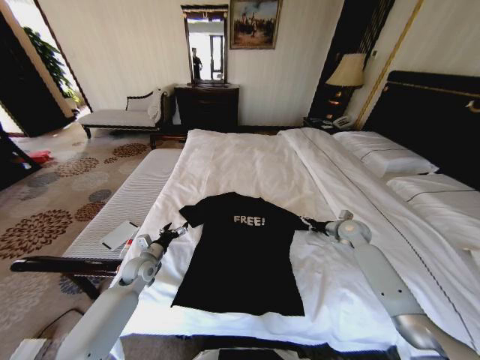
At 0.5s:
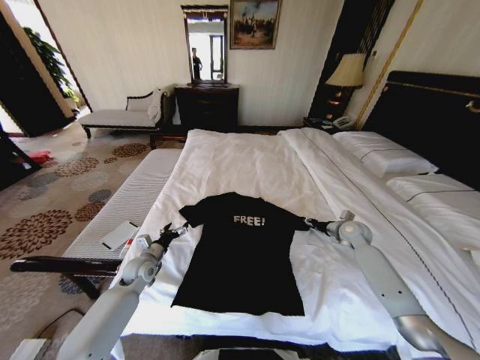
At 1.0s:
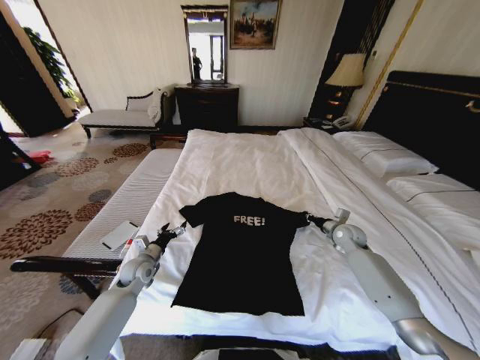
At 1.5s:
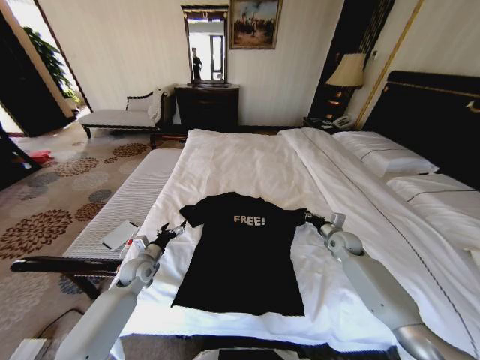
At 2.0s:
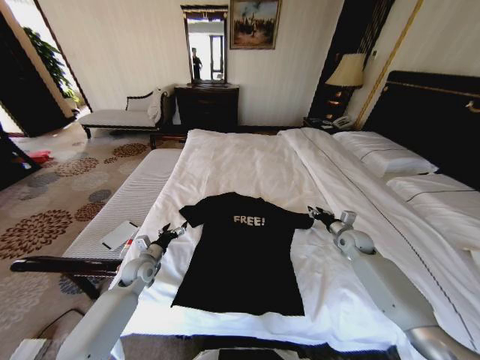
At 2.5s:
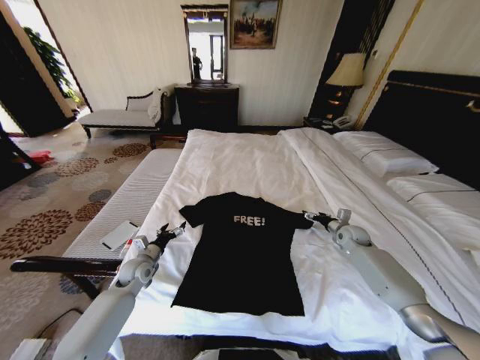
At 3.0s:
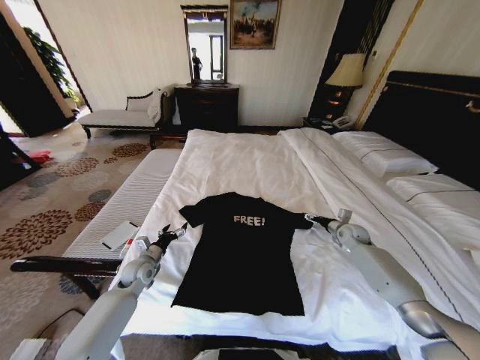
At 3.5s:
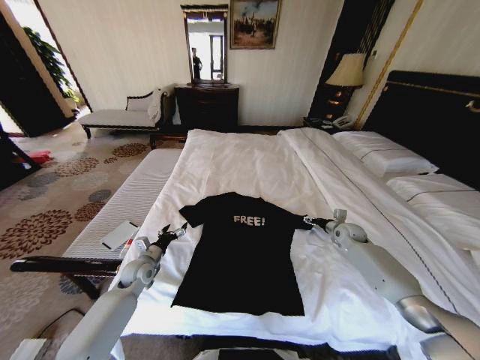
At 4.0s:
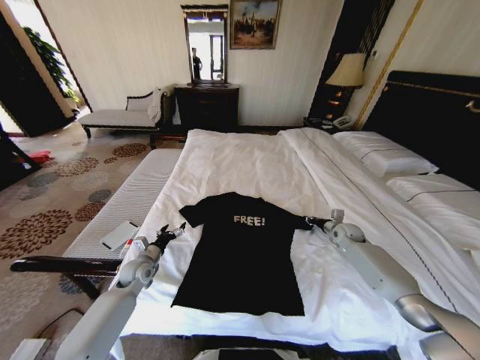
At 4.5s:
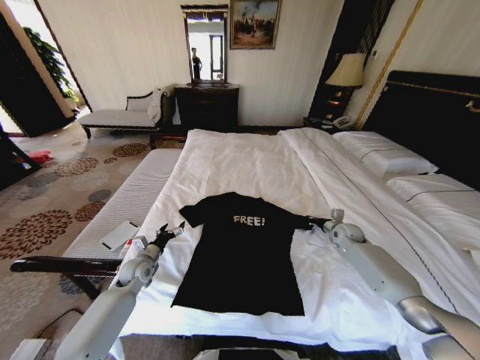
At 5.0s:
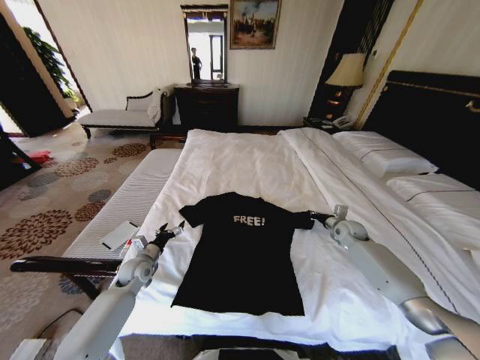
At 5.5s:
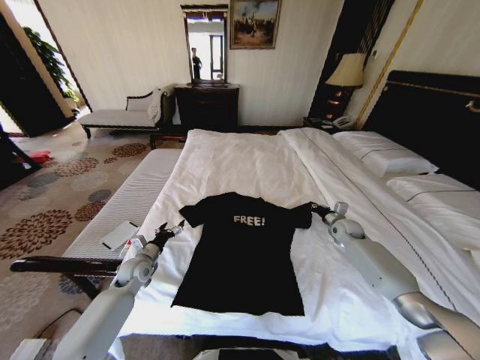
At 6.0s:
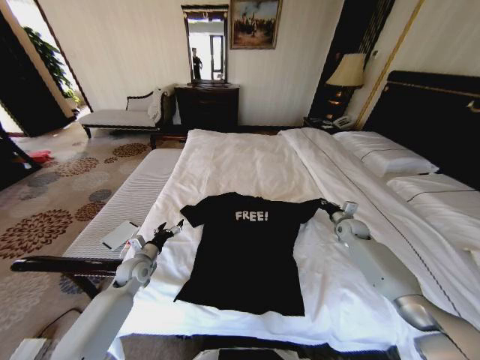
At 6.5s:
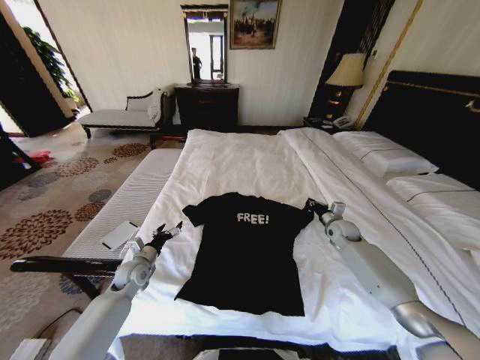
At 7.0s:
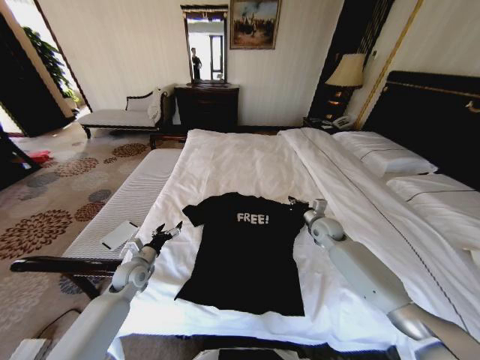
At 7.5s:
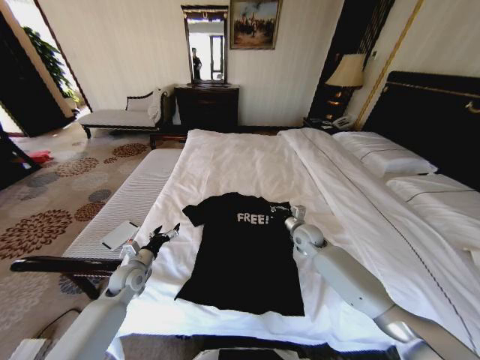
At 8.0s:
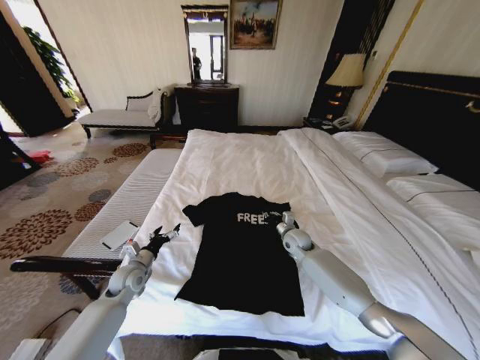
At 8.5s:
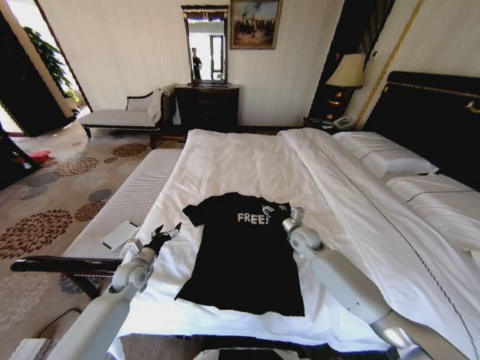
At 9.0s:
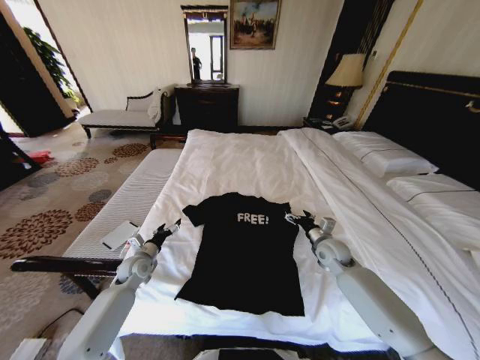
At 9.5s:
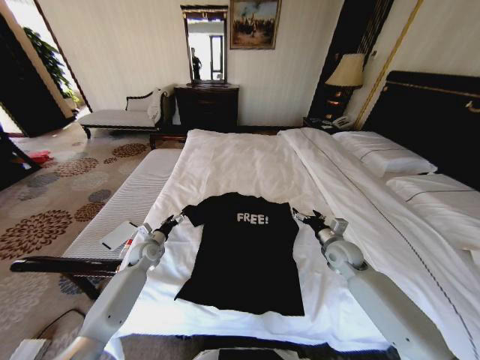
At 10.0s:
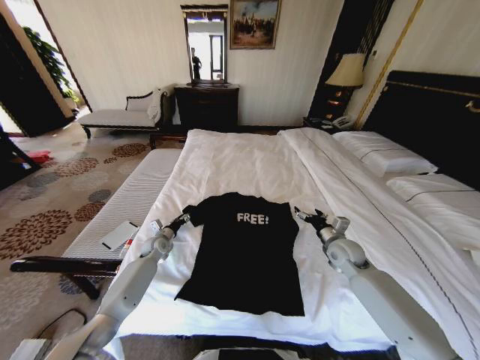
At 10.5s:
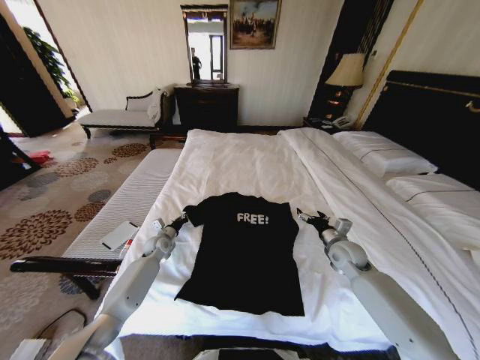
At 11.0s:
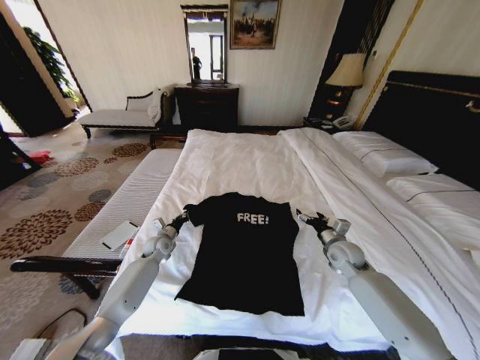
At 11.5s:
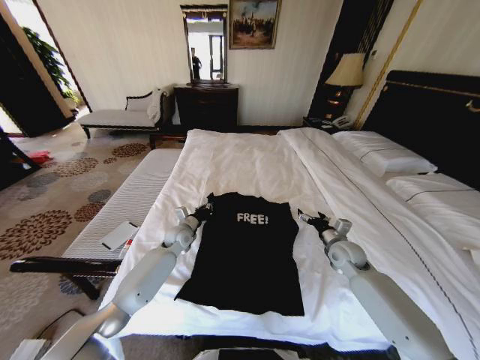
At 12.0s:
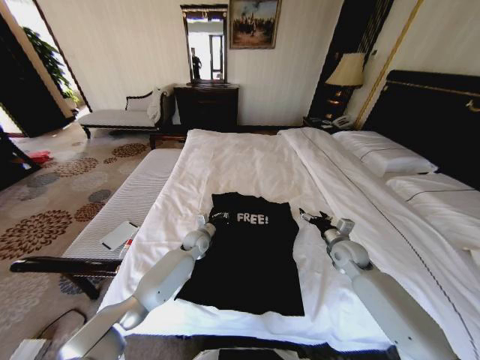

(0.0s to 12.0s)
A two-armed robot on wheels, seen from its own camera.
Task of the whole recording: Fold the clothes on the bed.
0.0s - 2.0s: The right gripper closes its fingers.
2.0s - 4.0s: The right gripper moves forward, about 5 cm, and opens and closes again.
4.0s - 6.0s: The right gripper closes.
6.0s - 8.0s: The right gripper goes roughly 20 cm to the left.
8.0s - 10.0s: The right gripper goes roughly 15 cm to the right, backward and upward, and opens up. Meanwhile the left gripper heads forward, covering some 15 cm, and closes up.
10.0s - 12.0s: The left gripper goes roughly 15 cm to the right, and closes its fingers.

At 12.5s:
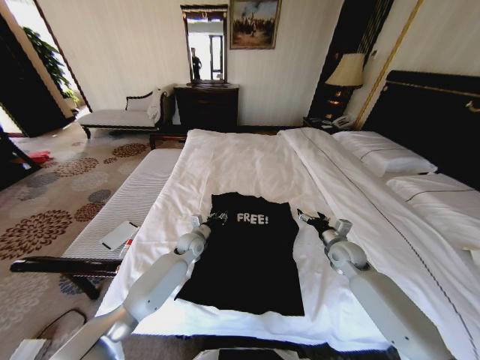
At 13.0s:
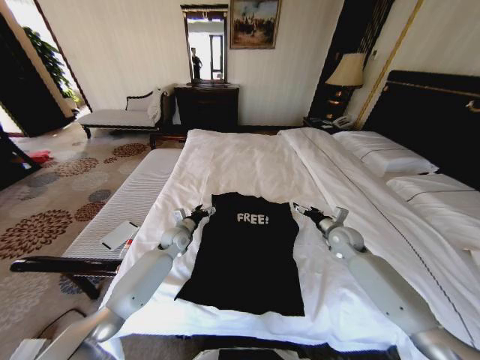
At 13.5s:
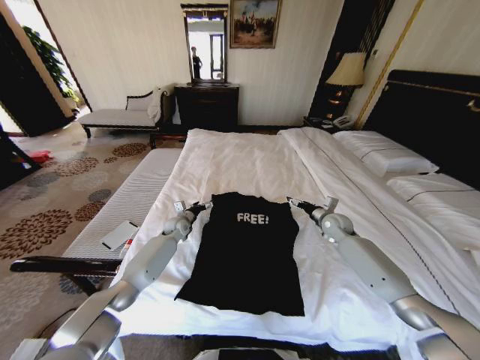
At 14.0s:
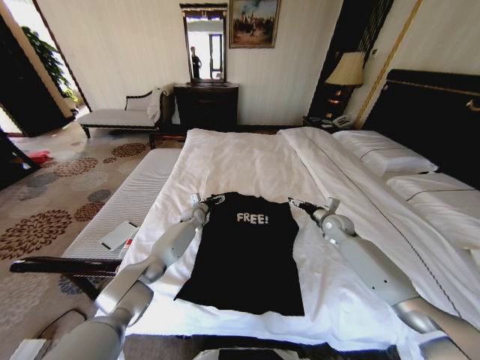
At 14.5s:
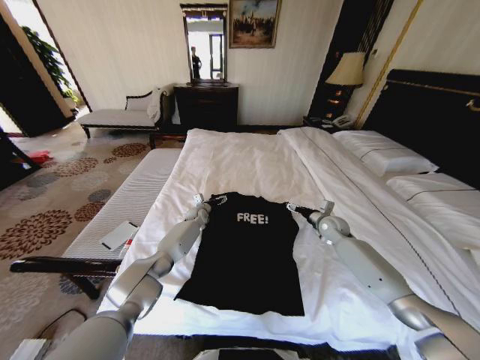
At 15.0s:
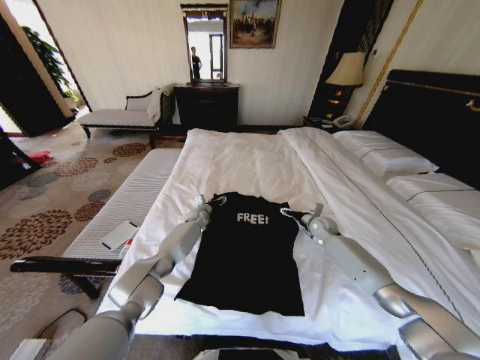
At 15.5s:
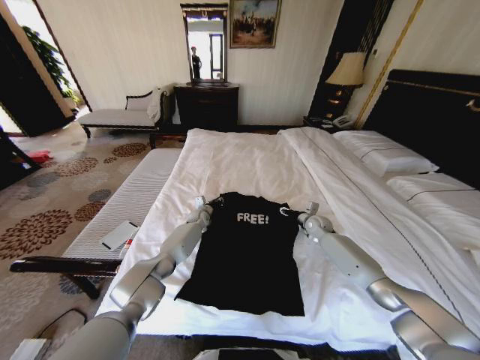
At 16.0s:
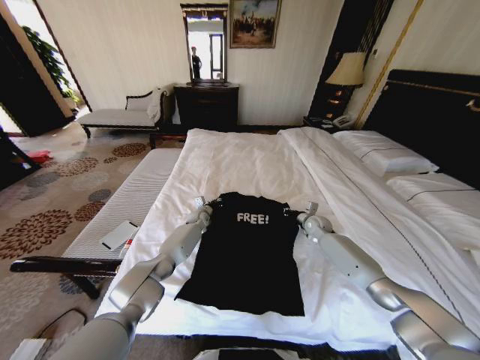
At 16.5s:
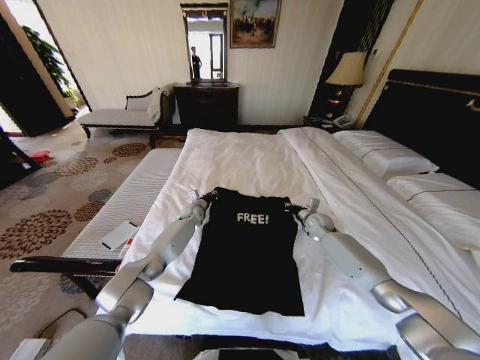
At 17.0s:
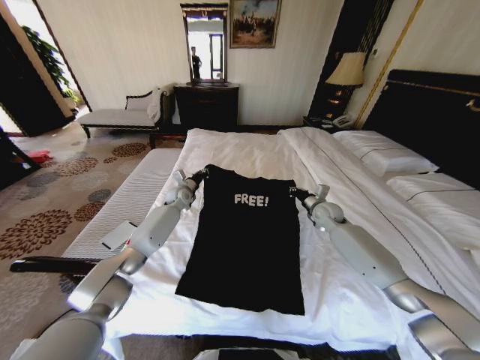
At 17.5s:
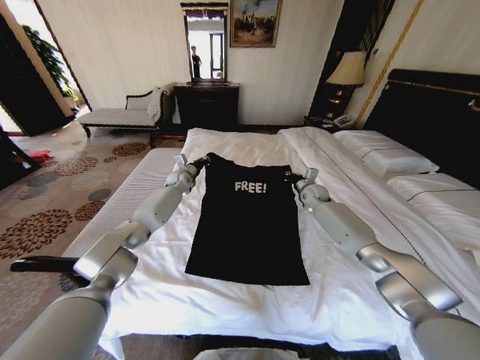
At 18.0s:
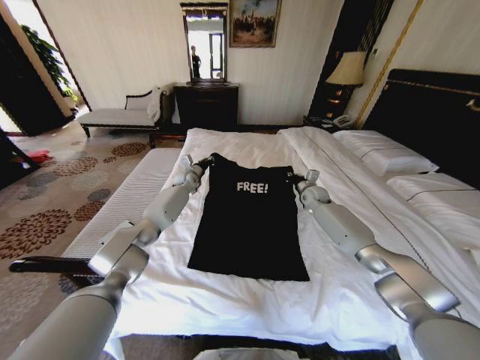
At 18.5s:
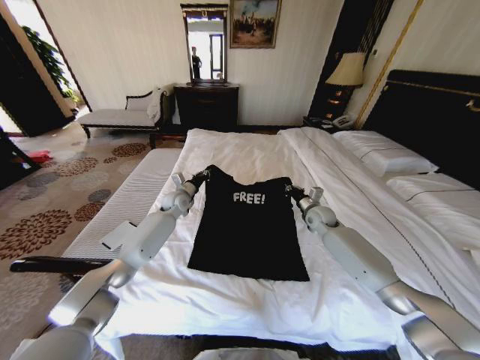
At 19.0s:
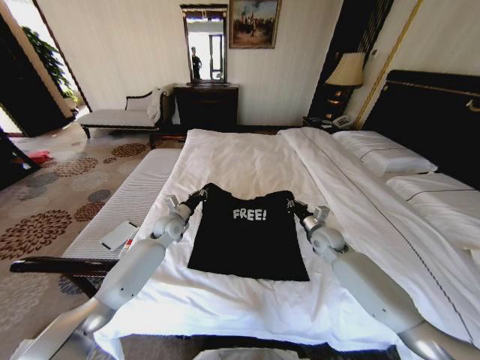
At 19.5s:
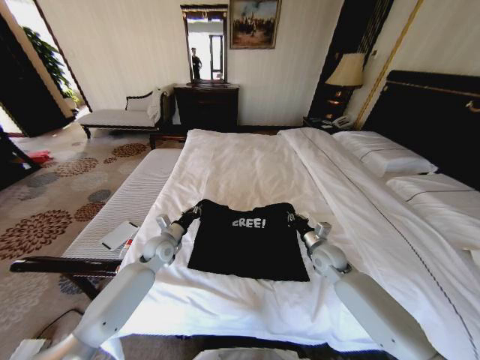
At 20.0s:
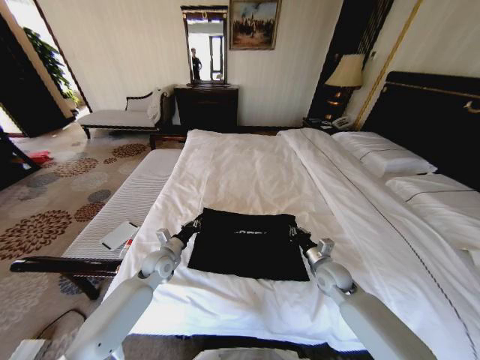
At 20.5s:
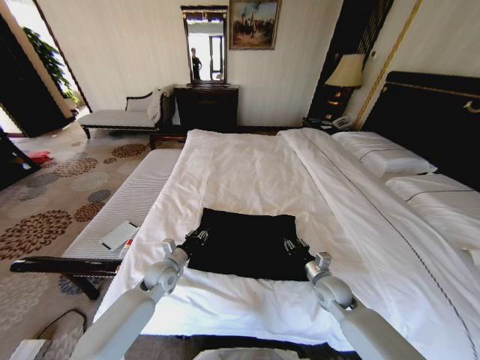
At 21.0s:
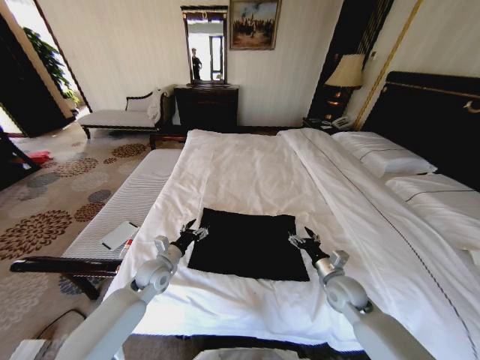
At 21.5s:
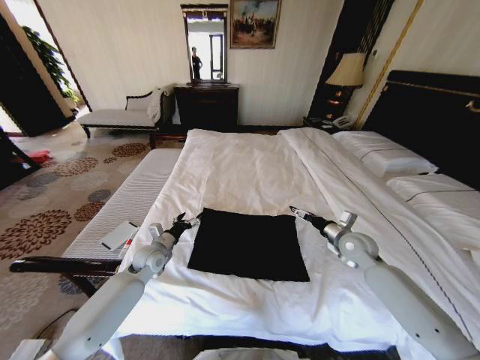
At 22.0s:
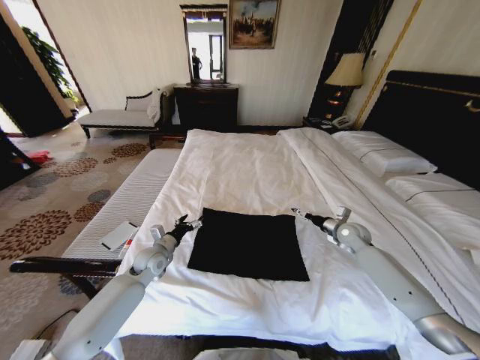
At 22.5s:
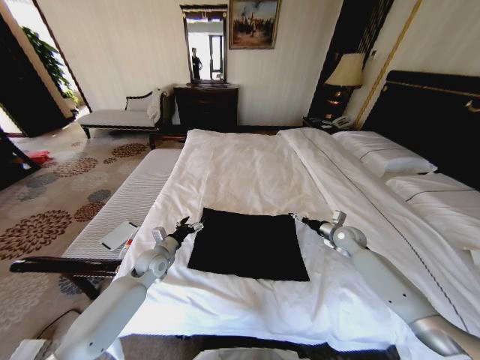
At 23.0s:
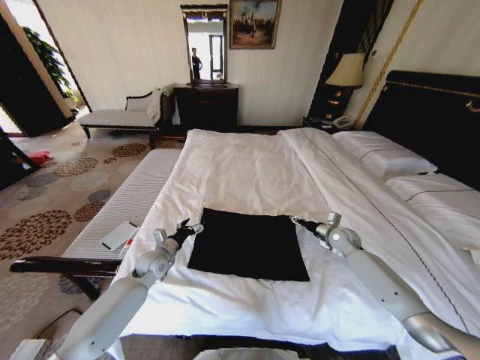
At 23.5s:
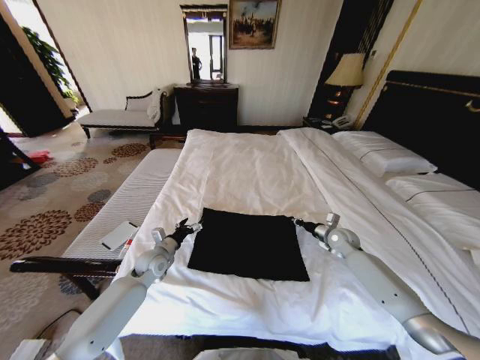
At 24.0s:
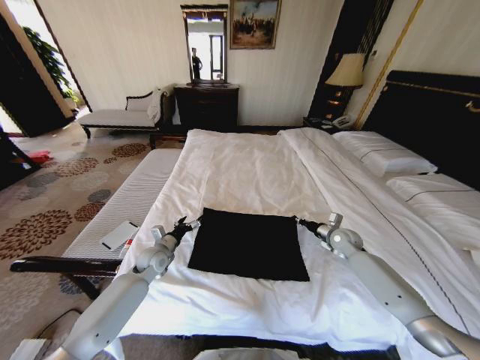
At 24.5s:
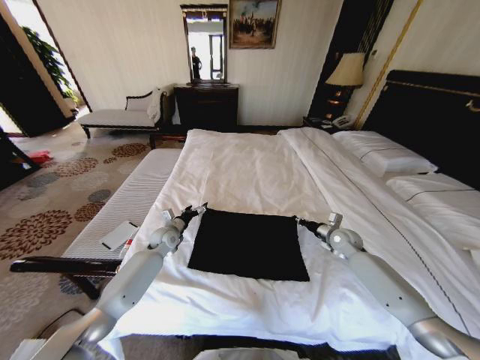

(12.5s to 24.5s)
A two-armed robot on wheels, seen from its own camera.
Task of the whole recording: Fold the clothes on the bed.
12.5s - 14.5s: Both grippers travel together forward, about 15 cm. The left gripper opens up.
14.5s - 16.5s: The right gripper closes its fingers; the left gripper closes its fingers.
16.5s - 18.5s: The left gripper heads upward, covering approximately 10 cm; the right gripper moves roughly 10 cm forward and comes back.
18.5s - 20.5s: The grippers both shift backward and downward by roughly 25 cm.
20.5s - 22.5s: The left gripper changes place by roughly 5 cm, and opens up. The right gripper moves forward, to the right and upward, approximately 20 cm, and opens its fingers.
22.5s - 24.5s: The right gripper closes its fingers; the left gripper travels forward by roughly 10 cm.

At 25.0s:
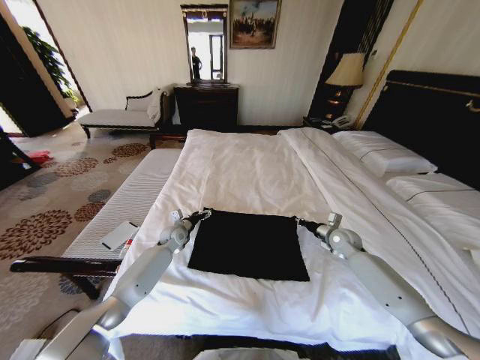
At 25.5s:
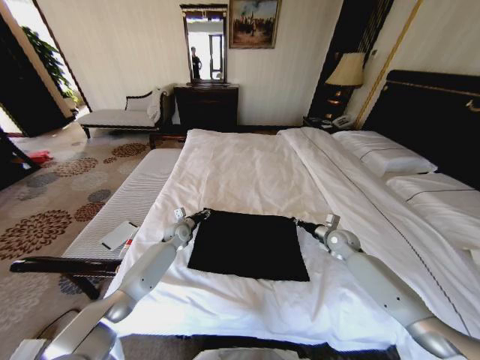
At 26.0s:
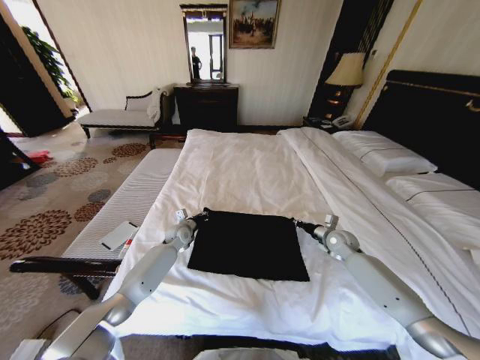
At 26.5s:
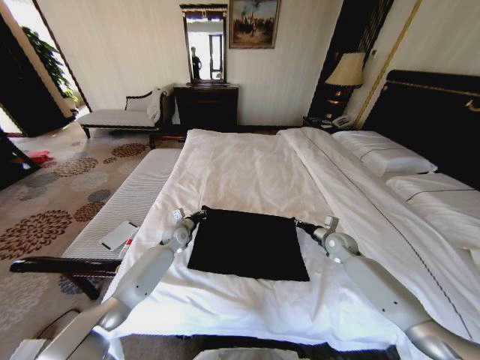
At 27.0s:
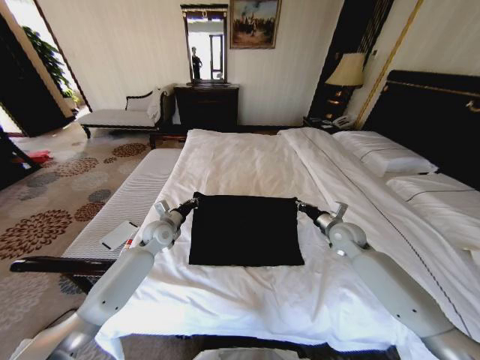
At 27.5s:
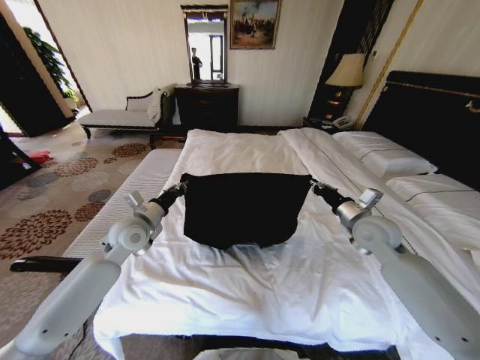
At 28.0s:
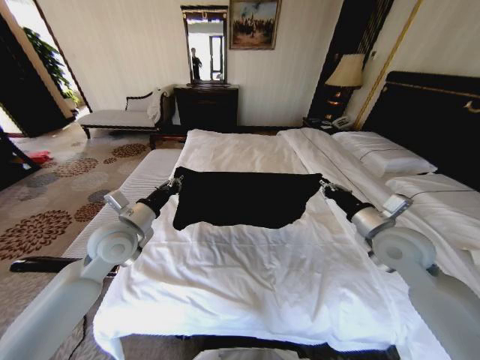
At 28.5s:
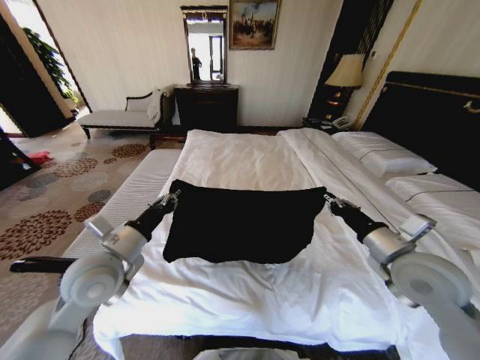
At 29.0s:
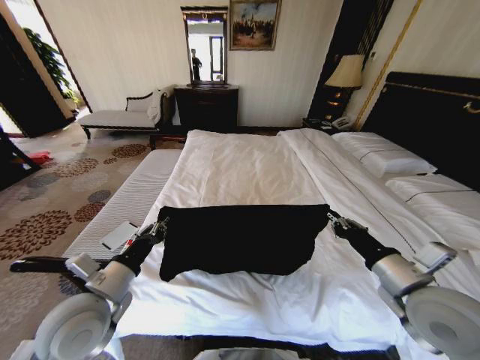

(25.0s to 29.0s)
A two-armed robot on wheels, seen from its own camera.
Task of the whole recording: Fold the clothes on the bed.
25.0s - 27.0s: The left gripper goes roughly 10 cm upward and backward, and closes its fingers. Meanwhile the right gripper travels upward by approximately 5 cm.
27.0s - 29.0s: The left gripper moves backward, roughly 25 cm, while the right gripper moves backward and upward, roughly 25 cm.
